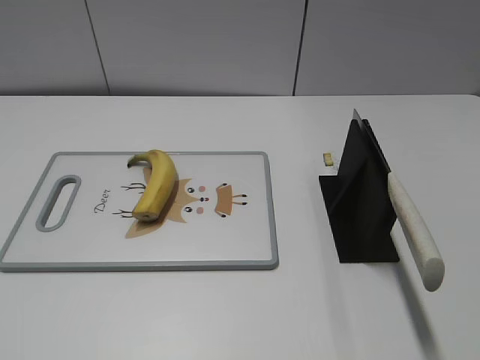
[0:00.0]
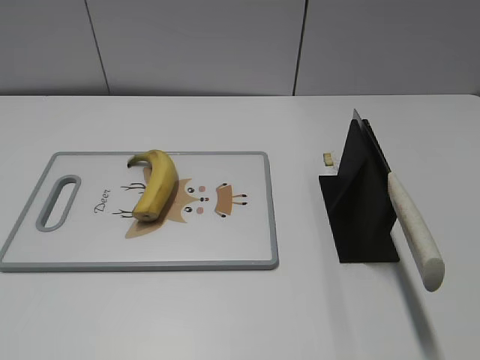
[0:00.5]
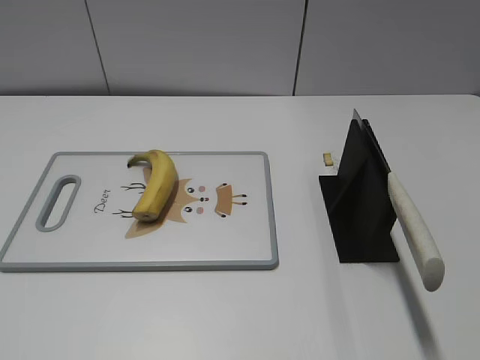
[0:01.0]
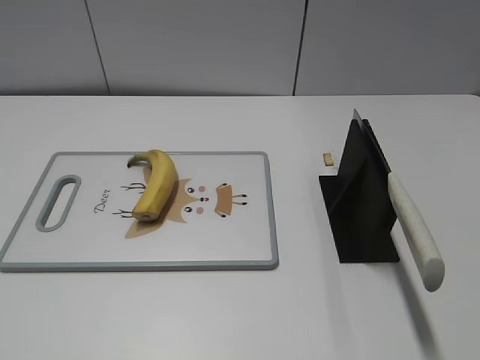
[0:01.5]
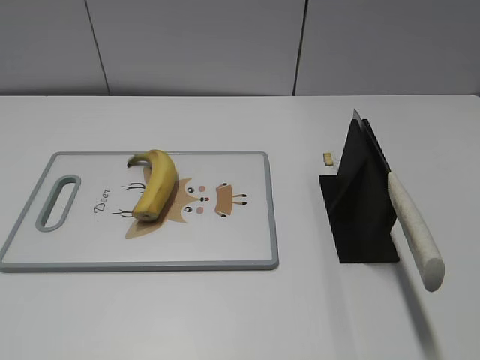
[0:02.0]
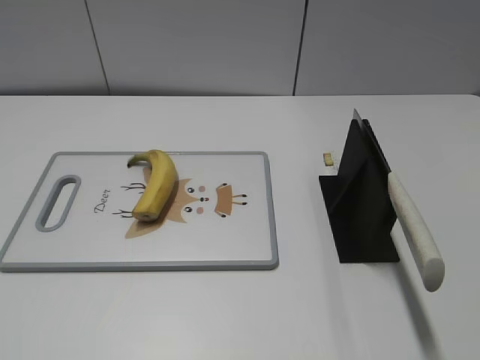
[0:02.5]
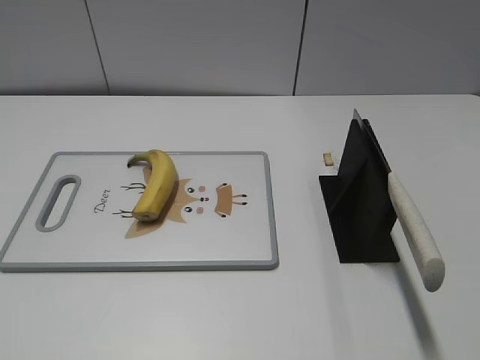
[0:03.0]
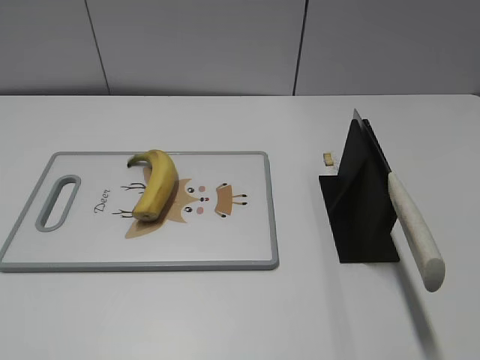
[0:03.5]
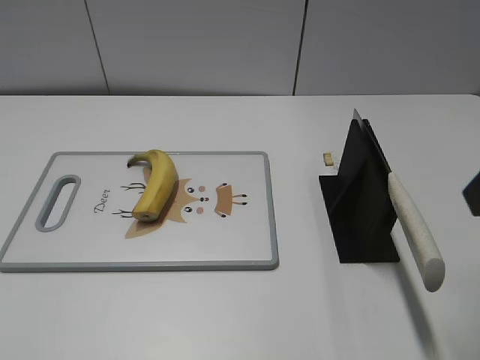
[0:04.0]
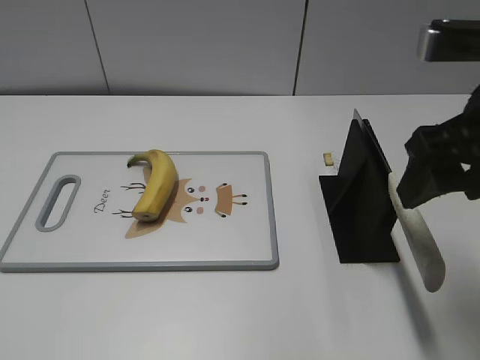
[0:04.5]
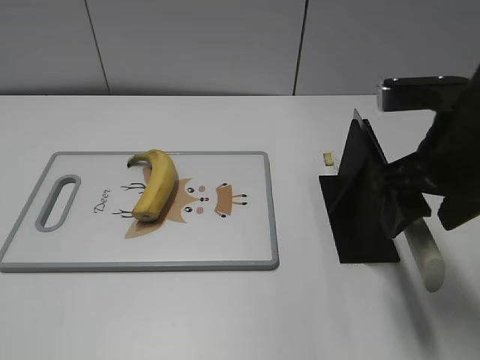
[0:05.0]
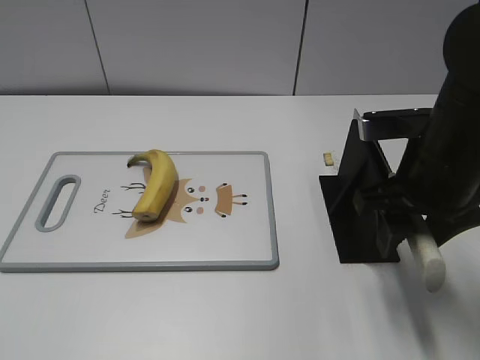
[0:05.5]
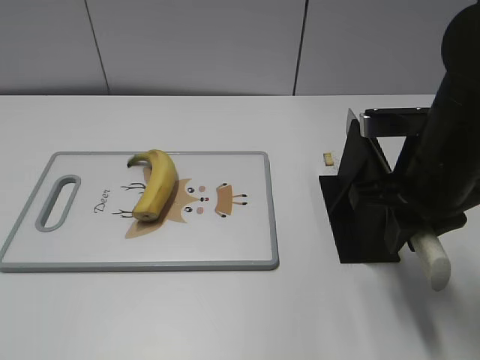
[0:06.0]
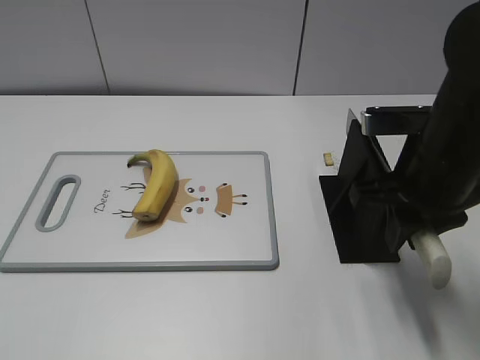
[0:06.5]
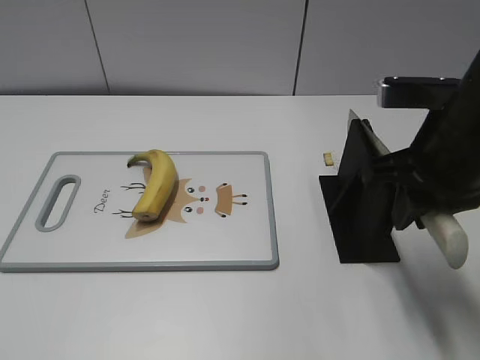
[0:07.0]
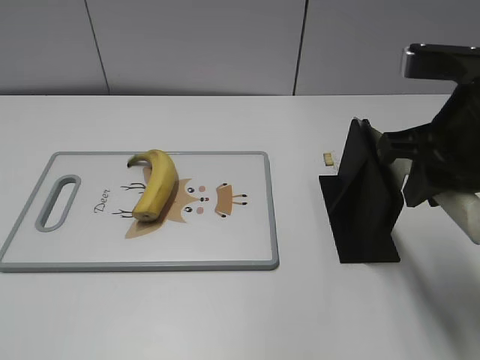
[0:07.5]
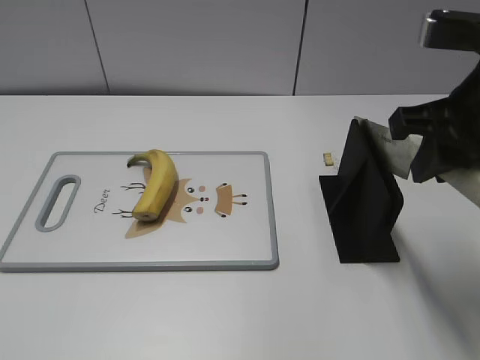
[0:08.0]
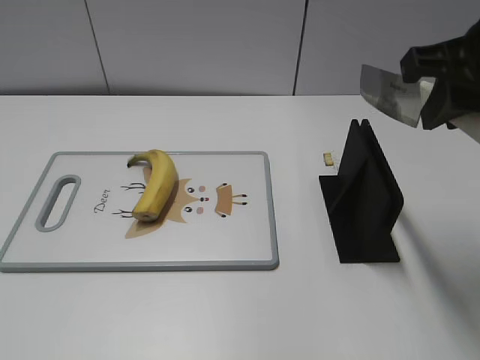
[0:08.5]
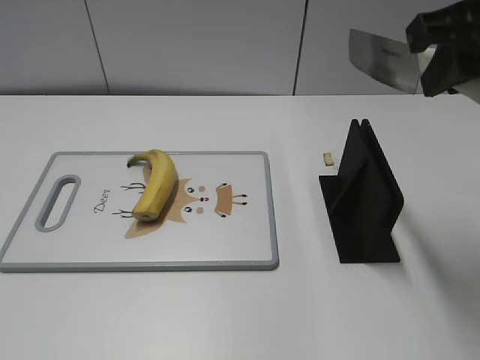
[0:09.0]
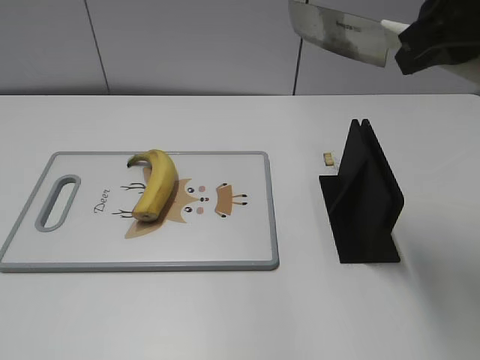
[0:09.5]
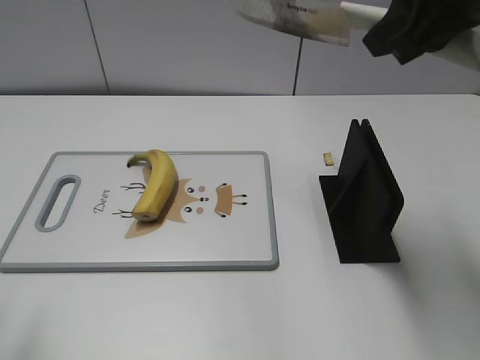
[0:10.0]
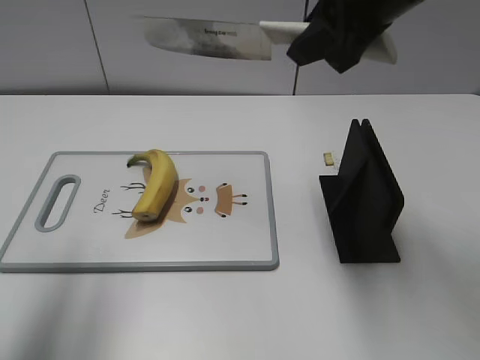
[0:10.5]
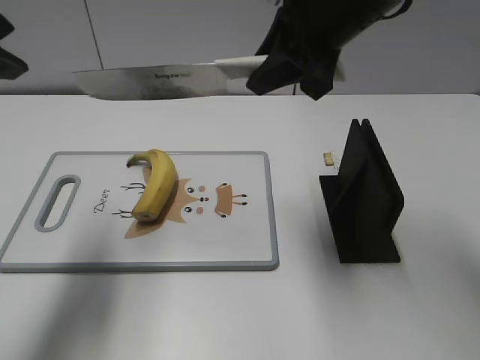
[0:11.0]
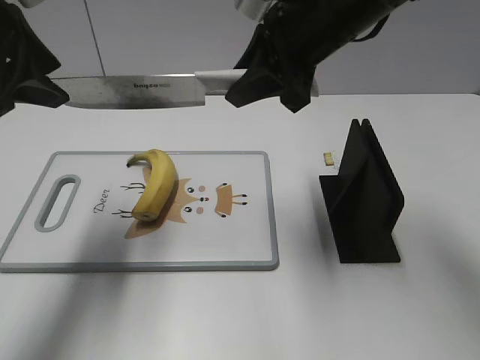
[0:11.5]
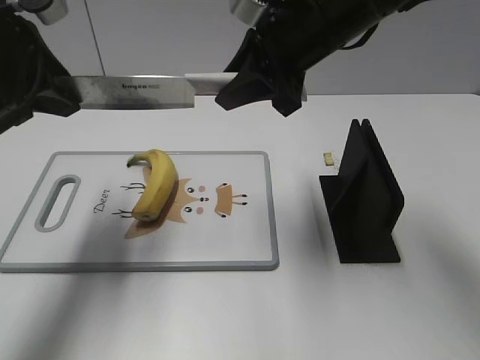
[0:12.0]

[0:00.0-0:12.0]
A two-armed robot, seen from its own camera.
Task of the whole recording: cut banana.
Step, 0:00.0 to 0:07.0: Grab the knife handle with your right hand.
0:04.0 to 0:06.0: The right gripper shifts roughly 15 cm downward and forward, and closes up.
0:06.0 to 0:08.0: The right gripper heads upward, covering about 10 cm.
0:08.0 to 0:10.0: The left gripper shifts approximately 10 cm forward and upward. The right gripper moves upward, roughly 10 cm.
0:10.0 to 0:12.0: The right gripper travels to the left, forward and downward by roughly 15 cm, while the left gripper travels forward by roughly 20 cm.

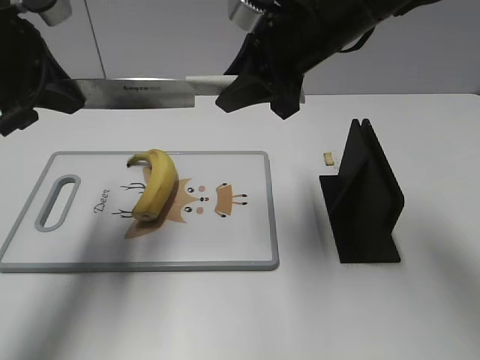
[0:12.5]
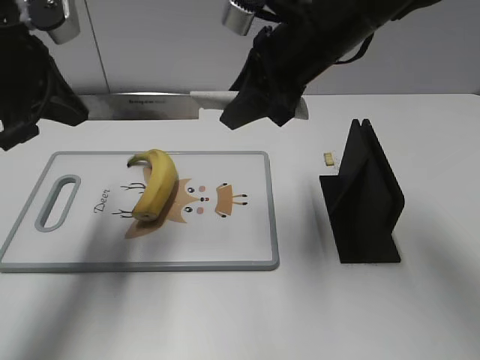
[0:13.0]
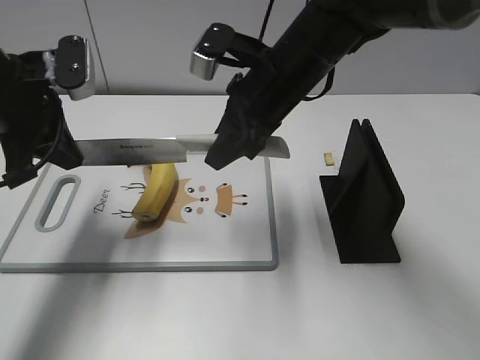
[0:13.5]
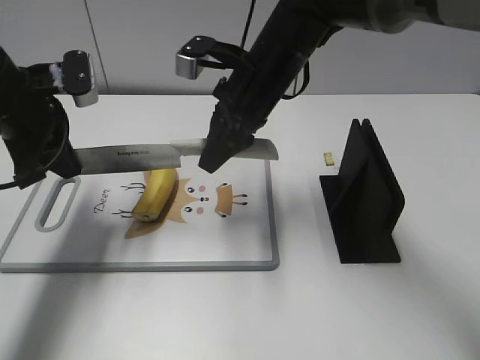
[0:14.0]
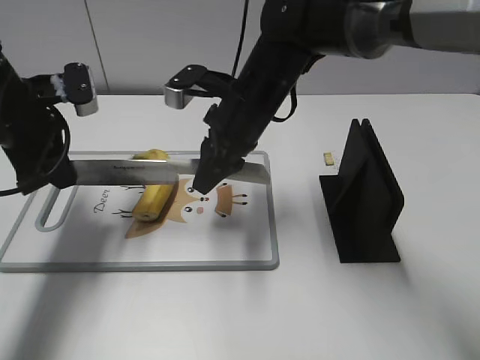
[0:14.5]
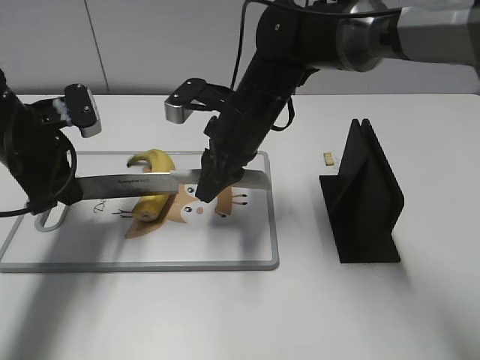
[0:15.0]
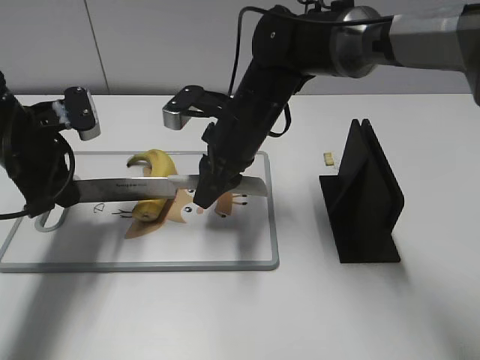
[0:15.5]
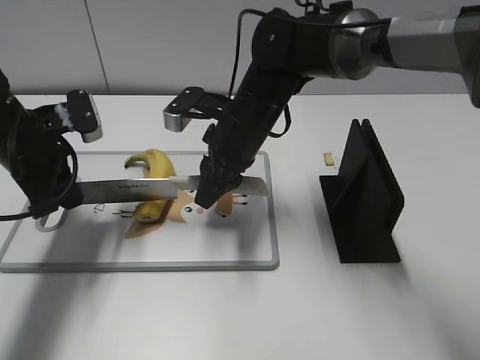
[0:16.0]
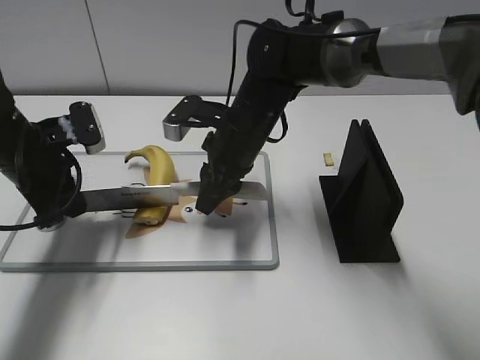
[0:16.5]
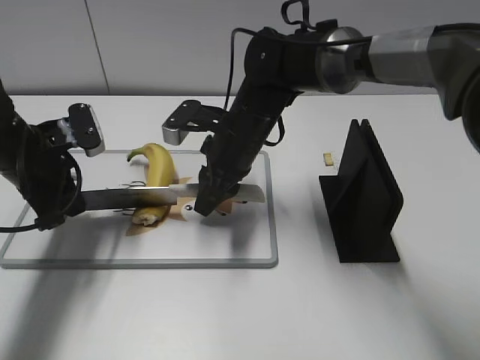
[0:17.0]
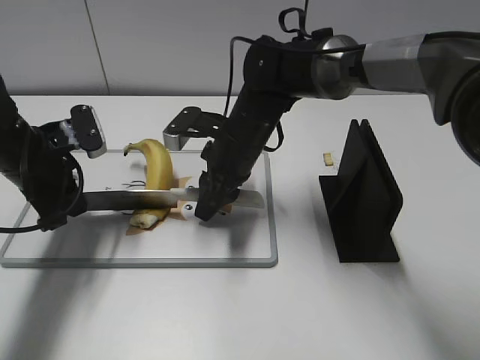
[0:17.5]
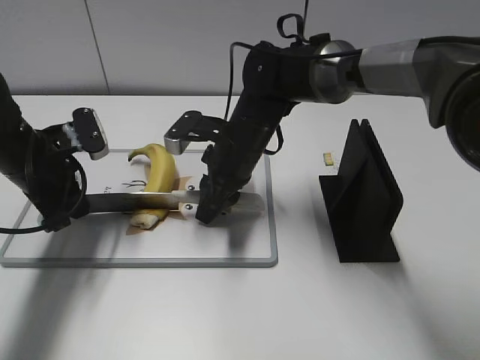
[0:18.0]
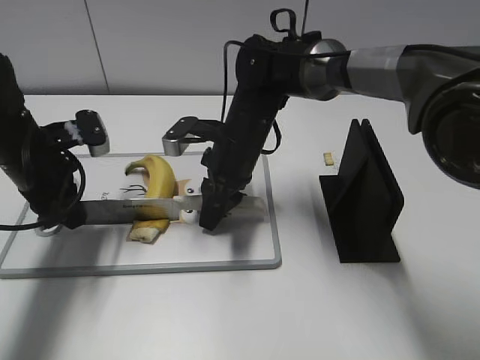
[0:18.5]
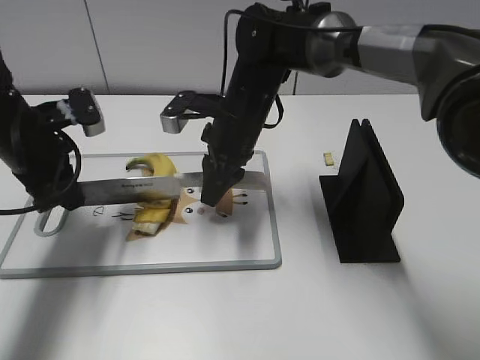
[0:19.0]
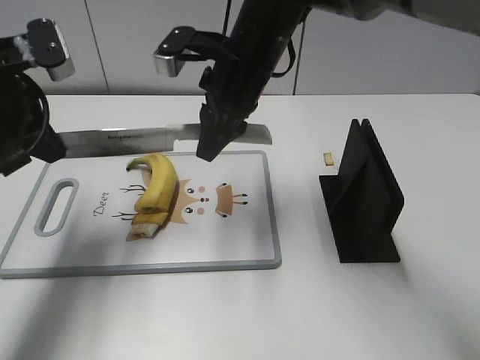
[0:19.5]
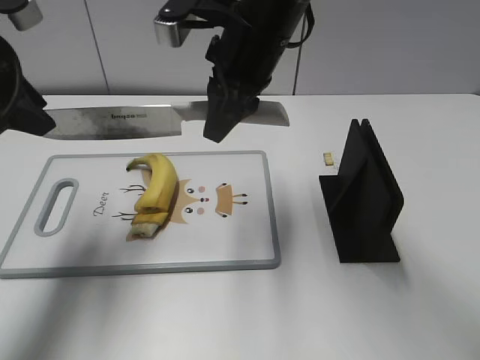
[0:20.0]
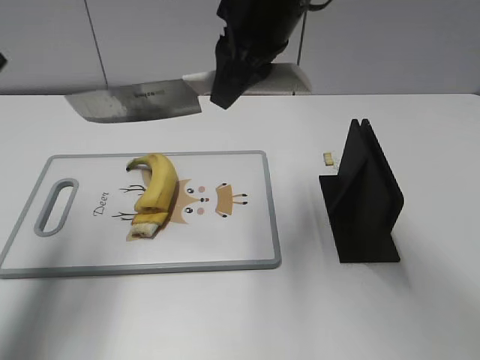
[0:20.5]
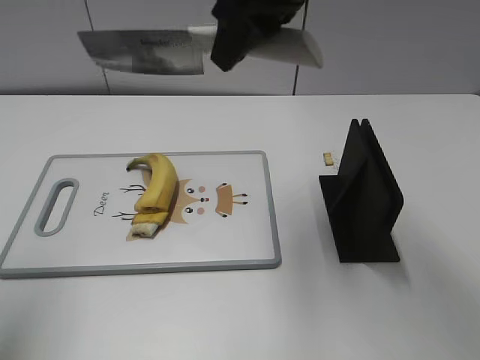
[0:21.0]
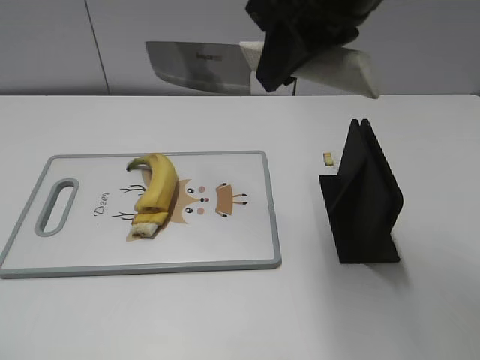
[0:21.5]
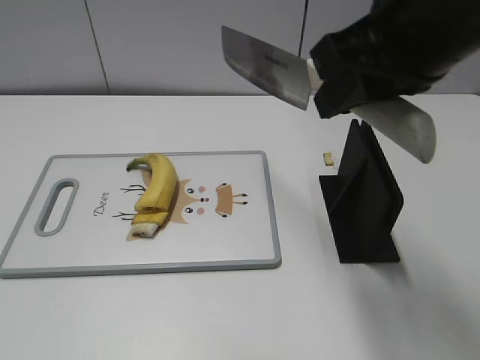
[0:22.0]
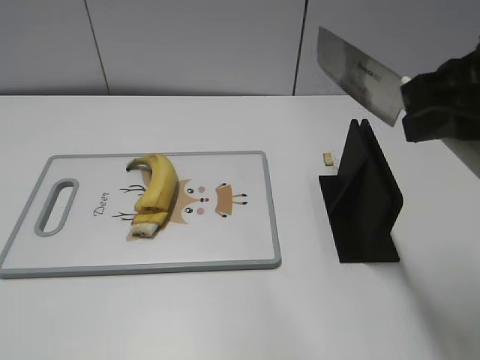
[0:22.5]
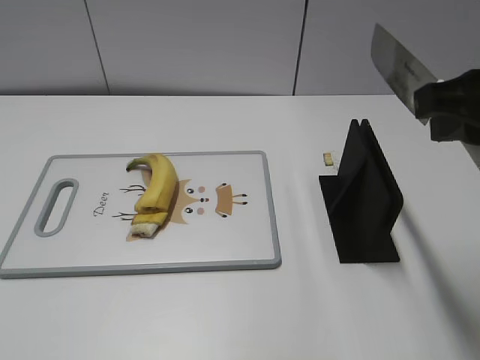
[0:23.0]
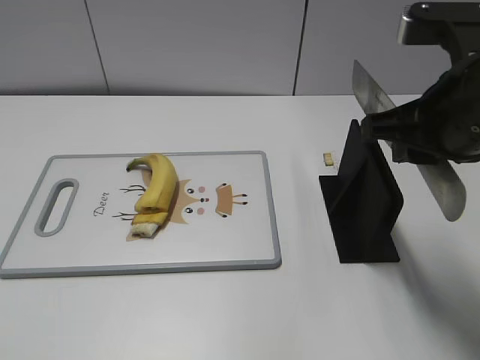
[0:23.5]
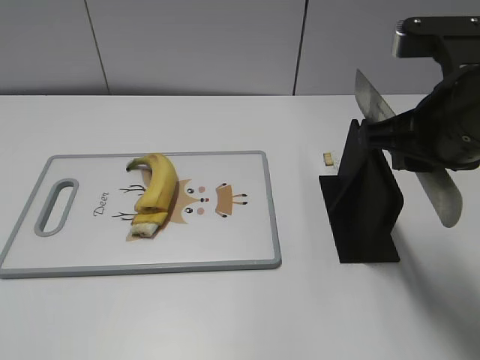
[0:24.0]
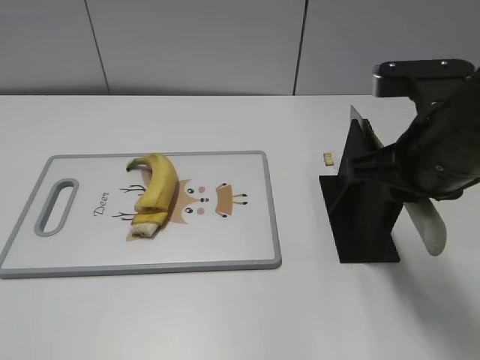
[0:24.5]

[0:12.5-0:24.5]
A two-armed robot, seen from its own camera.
Task of the whole recording: cut banana.
Step, 0:12.5 to 0:15.0: Lift the knife with your right hand.
Step, 0:15.5 to 0:22.5: Cut the banana with your right hand.
0:12.5 to 0:14.5: The left gripper is displaced downward by roughly 10 cm. The right gripper goes roughly 10 cm downward and to the left.
0:14.5 to 0:16.5: The left gripper heads downward, covering roughly 5 cm.
0:18.5 to 0:20.5: The two grippers go roughly 20 cm upward. The left gripper opens its fingers.
0:20.5 to 0:22.5: The left gripper goes some 25 cm backward. Meanwhile the right gripper goes some 20 cm backward and to the right.
0:22.5 to 0:24.5: The right gripper is displaced downward by roughly 10 cm.

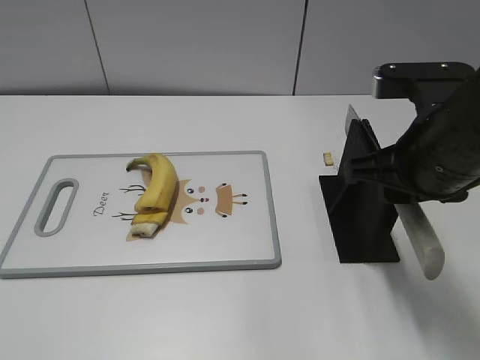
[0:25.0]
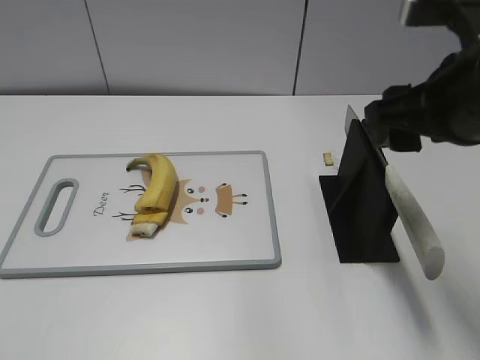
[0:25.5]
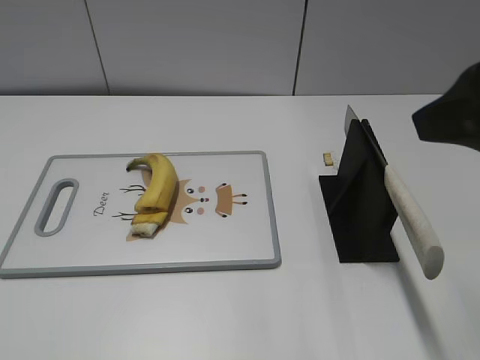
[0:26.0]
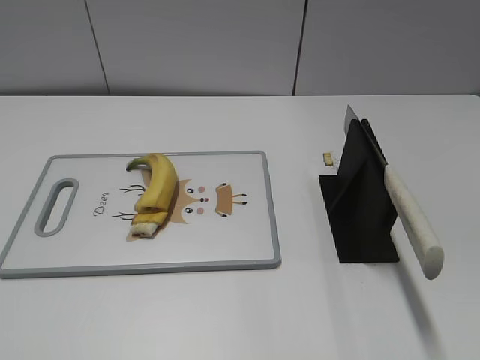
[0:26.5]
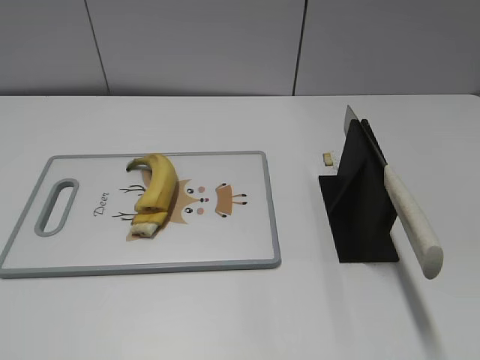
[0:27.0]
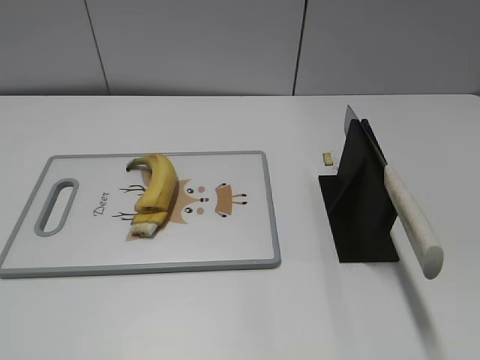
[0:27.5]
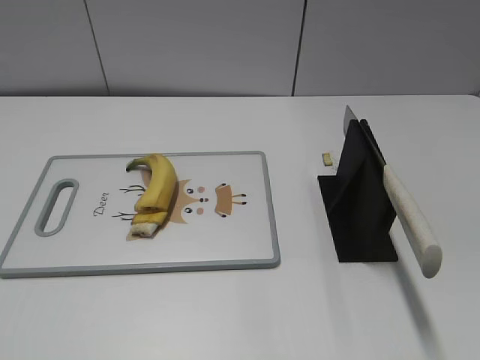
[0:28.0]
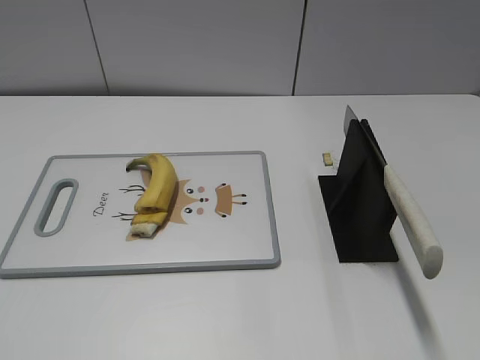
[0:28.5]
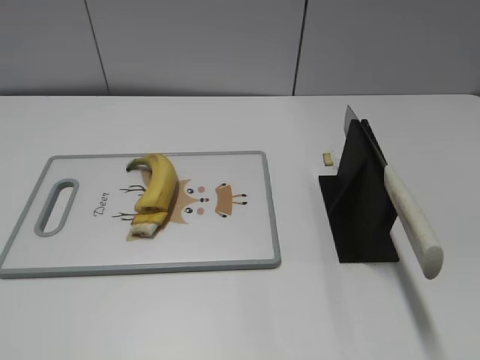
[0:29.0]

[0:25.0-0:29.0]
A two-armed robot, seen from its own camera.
Task of the whole recording: cut banana.
0:25.0 to 0:27.0: The right gripper heads backward and to the right, covering some 25 cm, and opens its fingers.
